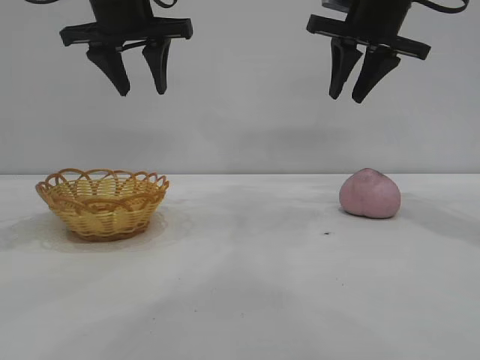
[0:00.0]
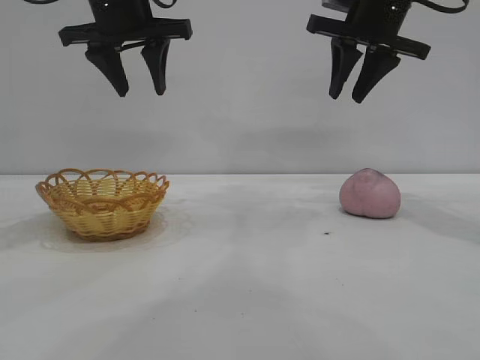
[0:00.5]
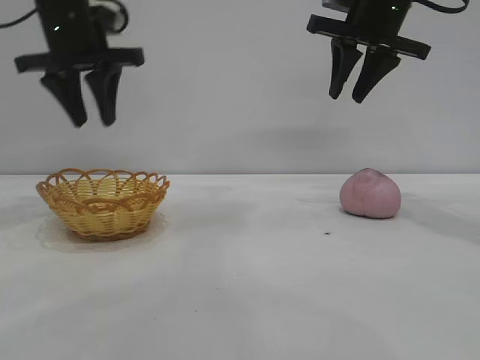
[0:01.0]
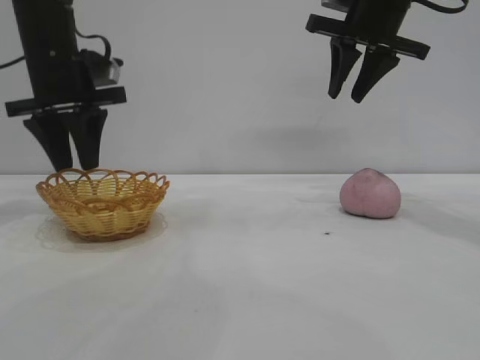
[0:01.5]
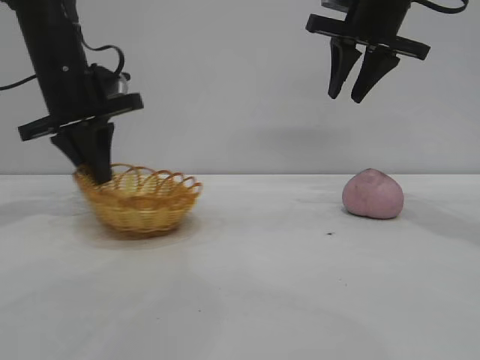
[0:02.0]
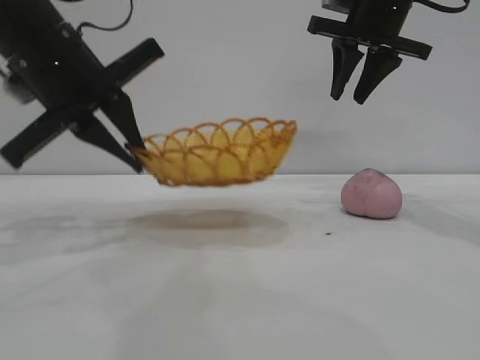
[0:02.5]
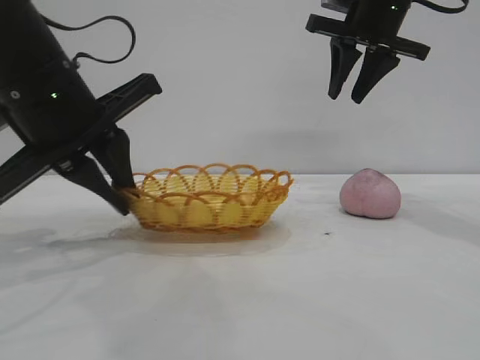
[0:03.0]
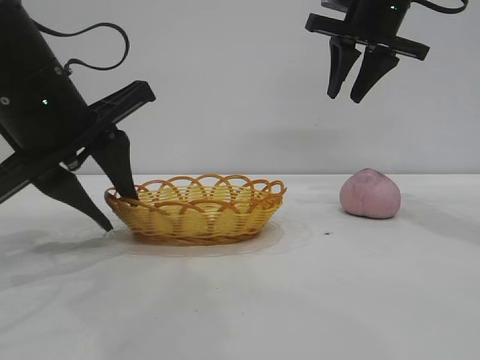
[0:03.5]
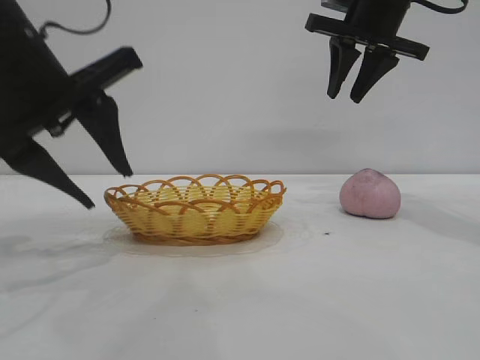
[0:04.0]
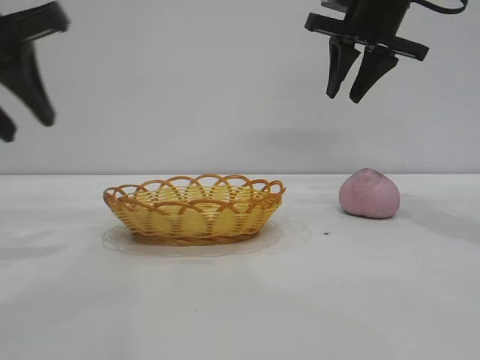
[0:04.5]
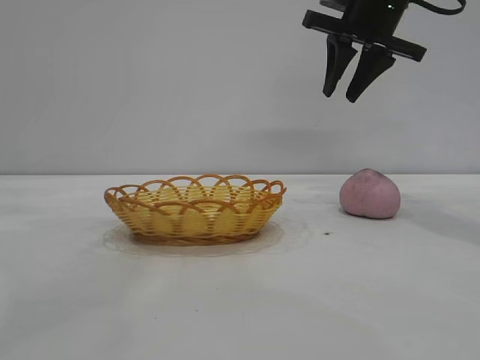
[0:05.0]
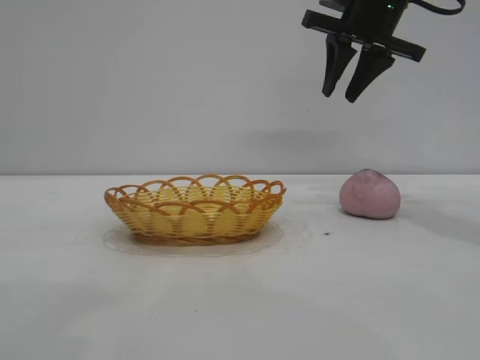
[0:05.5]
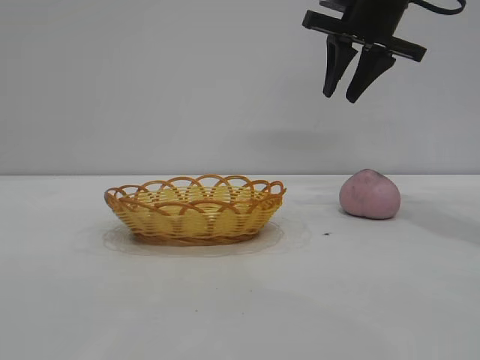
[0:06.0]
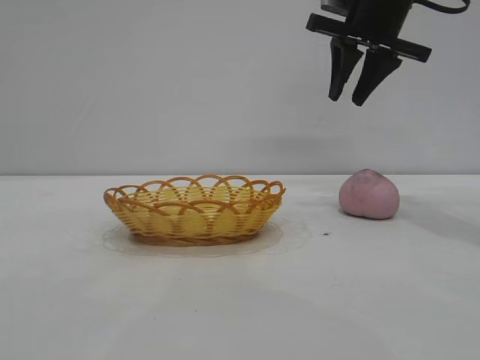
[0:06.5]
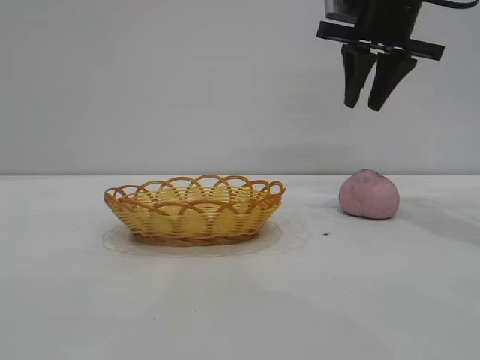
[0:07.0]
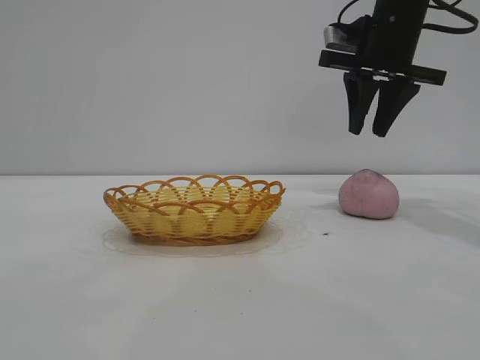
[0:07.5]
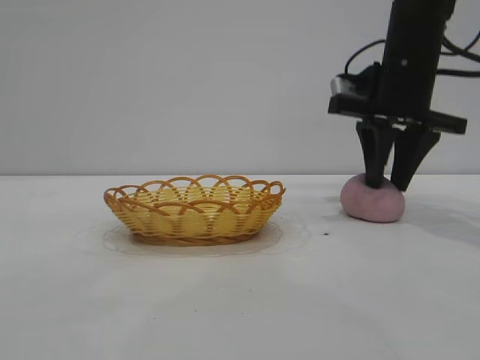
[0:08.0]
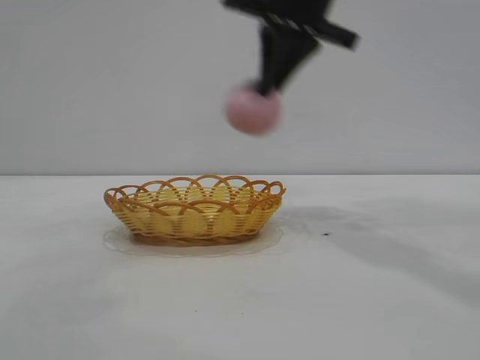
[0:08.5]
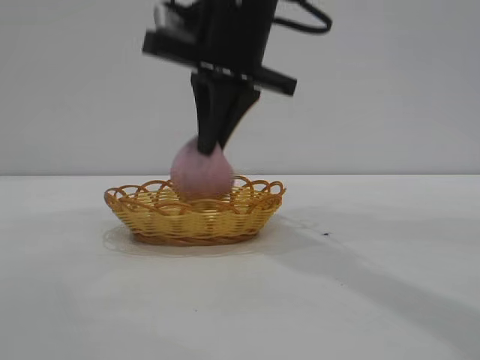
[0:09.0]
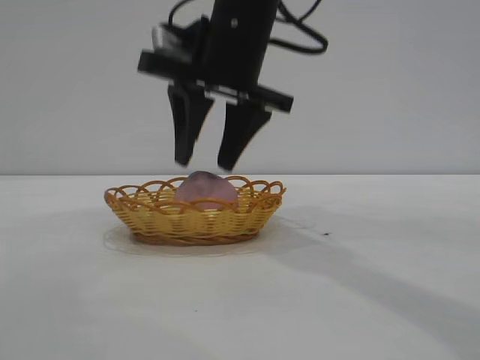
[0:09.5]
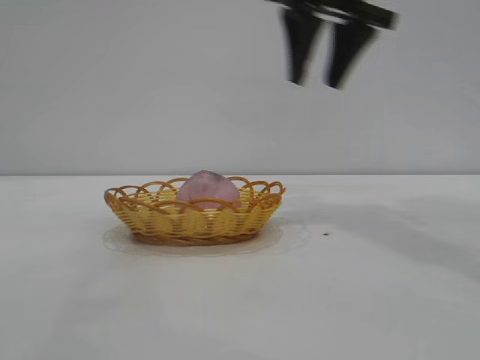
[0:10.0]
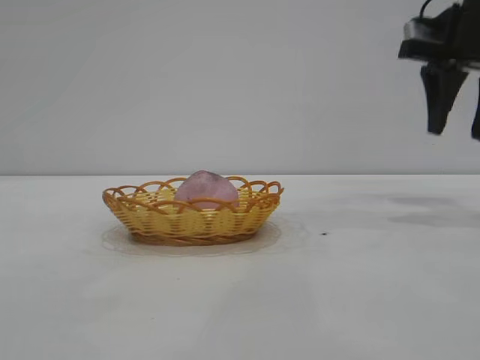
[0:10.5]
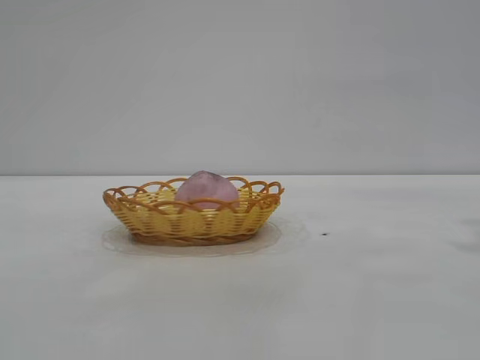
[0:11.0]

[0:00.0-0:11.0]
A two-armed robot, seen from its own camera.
Task of the whole recording: pick up the peach and put it into the basket.
Step, 0:00.0 to 0:04.0: Move the basket to the center of view.
Step, 0:04.5 to 0:08.0: Pick up the peach.
Step, 0:08.5 to 0:09.5: place the peach into the basket.
